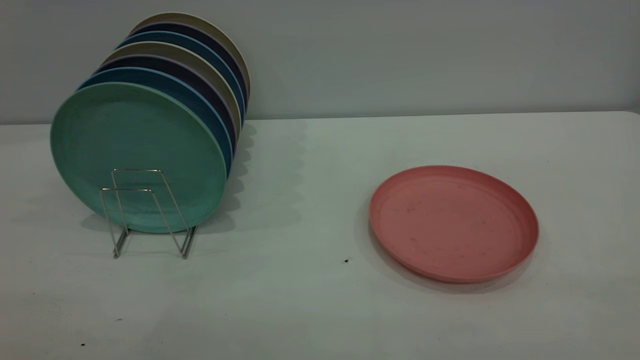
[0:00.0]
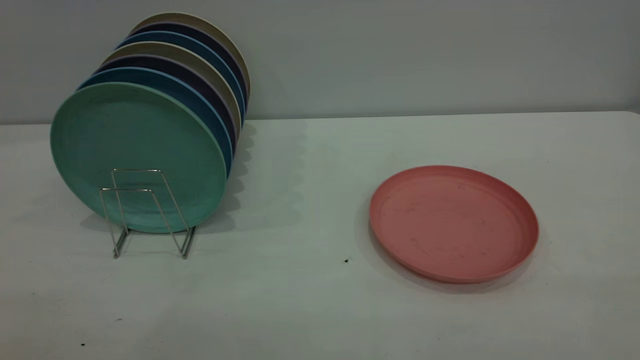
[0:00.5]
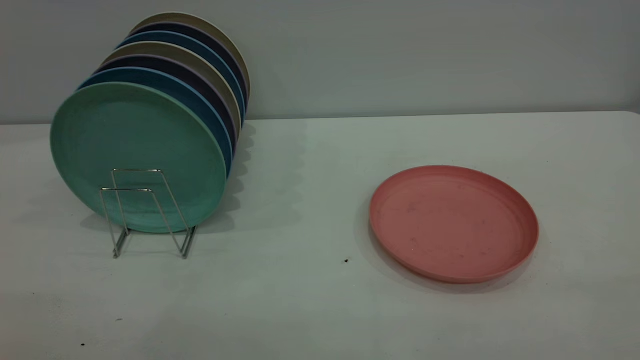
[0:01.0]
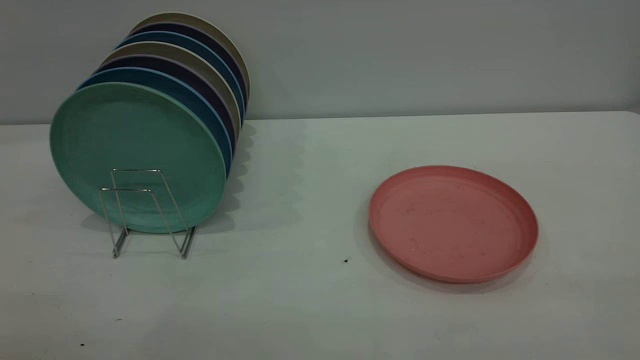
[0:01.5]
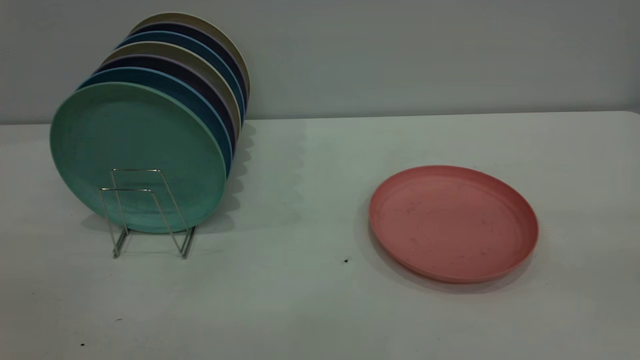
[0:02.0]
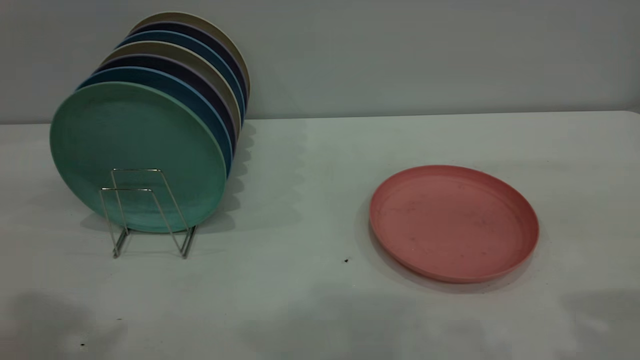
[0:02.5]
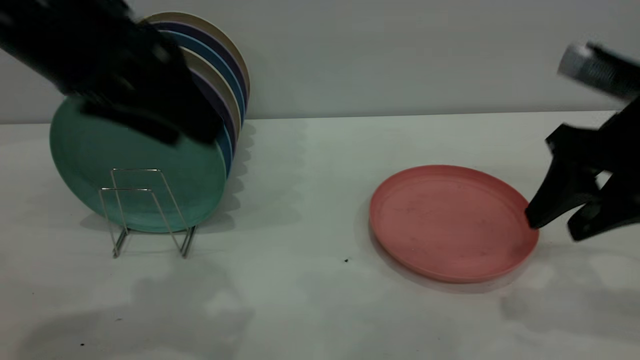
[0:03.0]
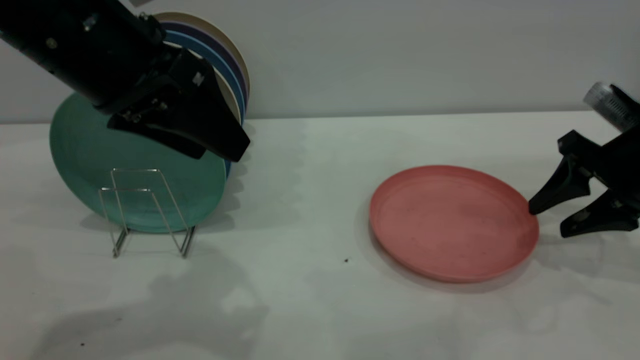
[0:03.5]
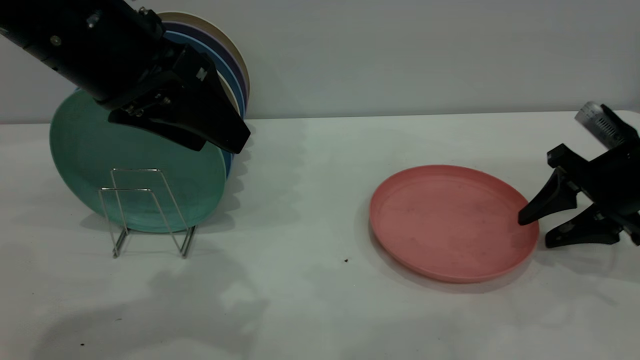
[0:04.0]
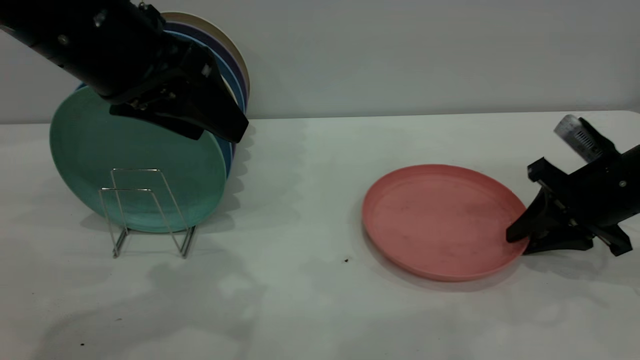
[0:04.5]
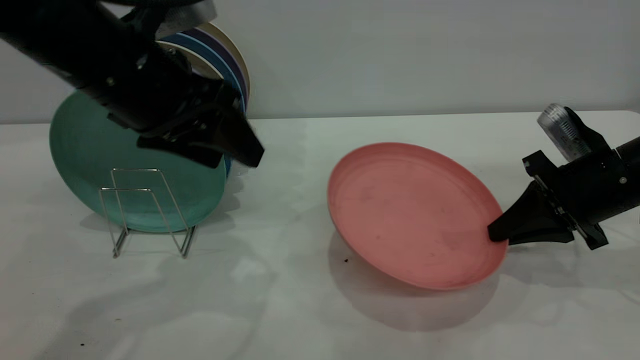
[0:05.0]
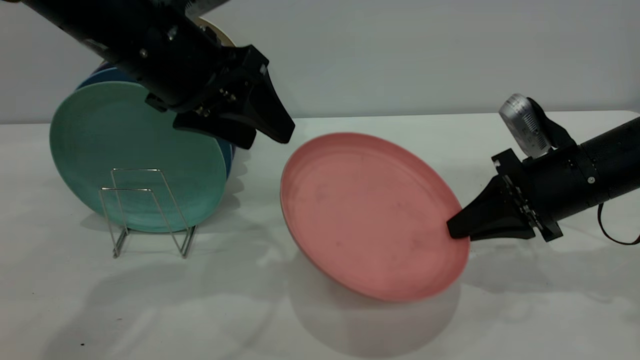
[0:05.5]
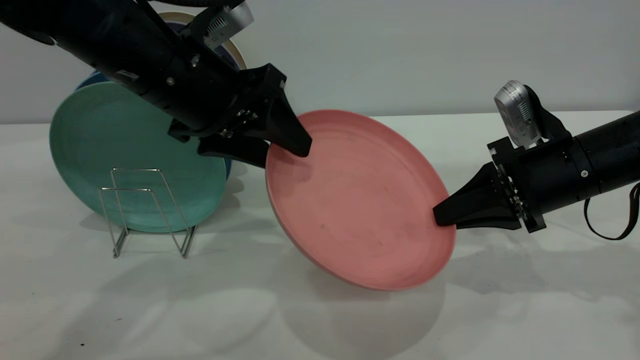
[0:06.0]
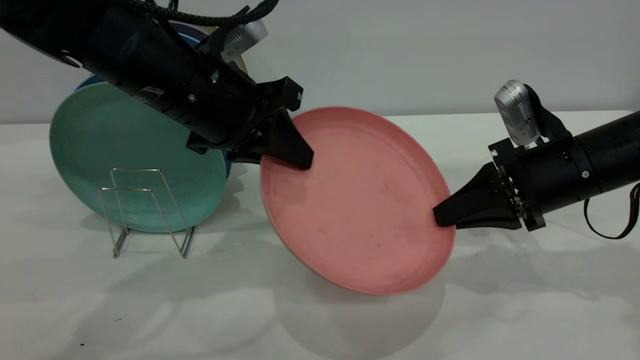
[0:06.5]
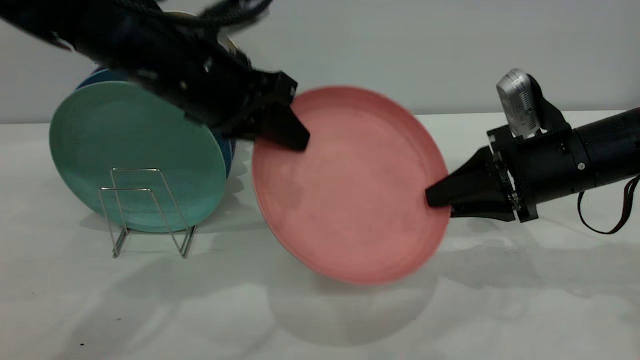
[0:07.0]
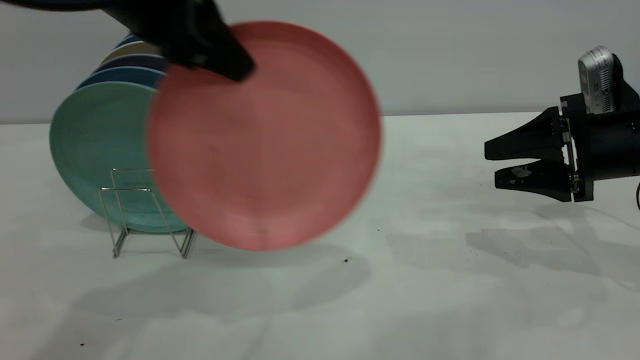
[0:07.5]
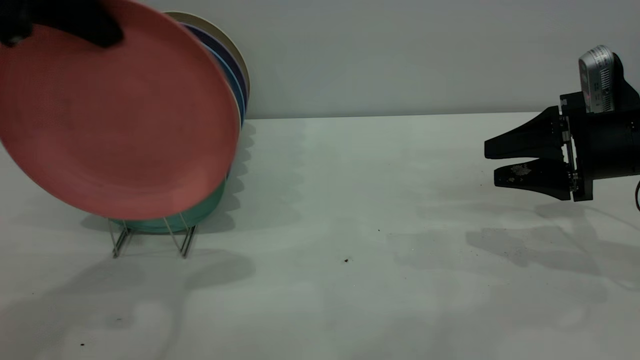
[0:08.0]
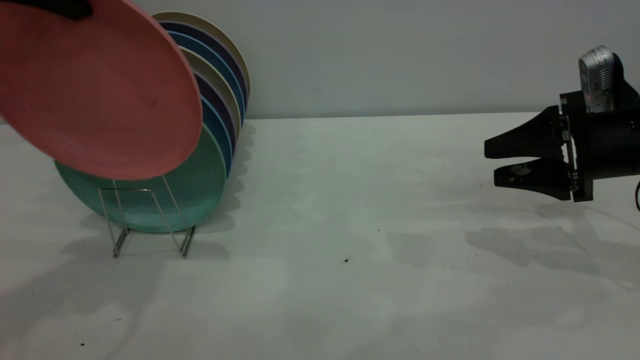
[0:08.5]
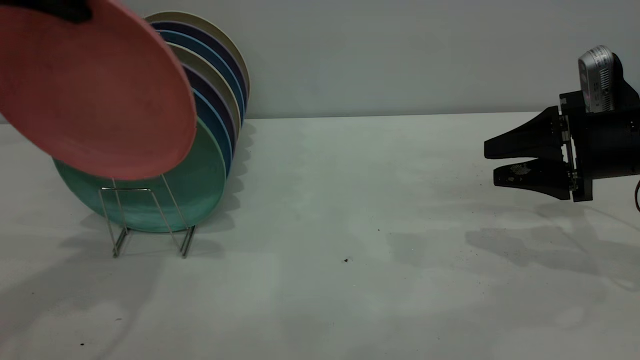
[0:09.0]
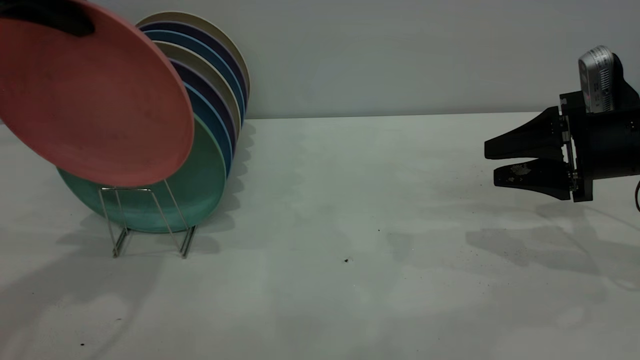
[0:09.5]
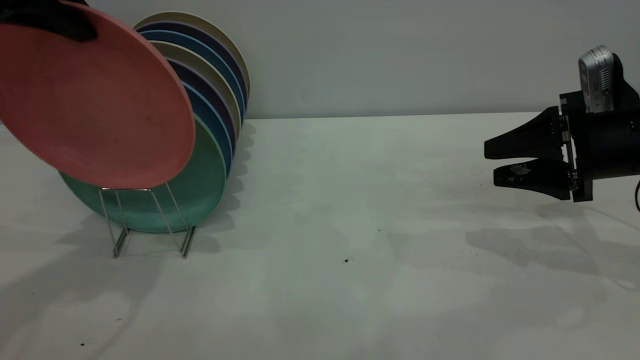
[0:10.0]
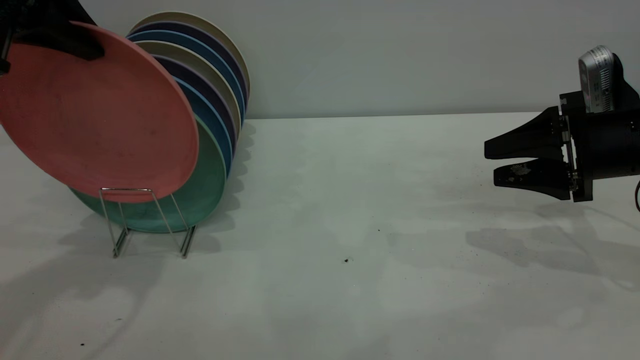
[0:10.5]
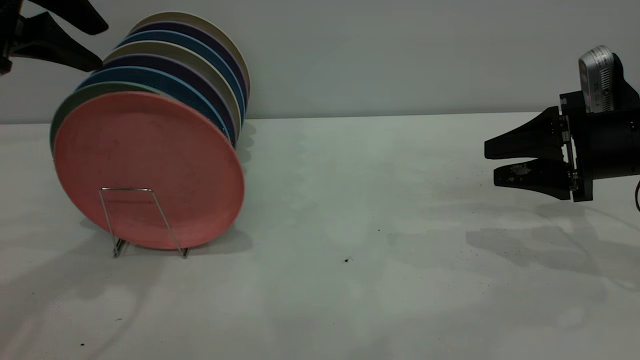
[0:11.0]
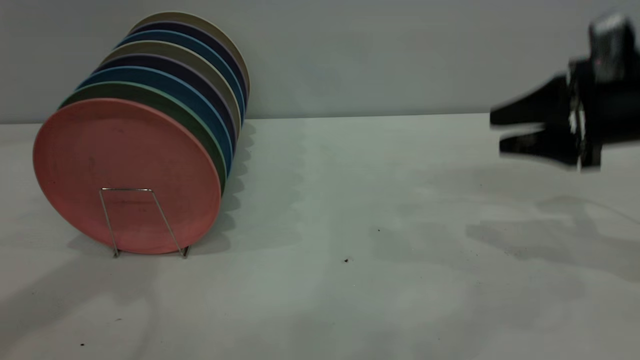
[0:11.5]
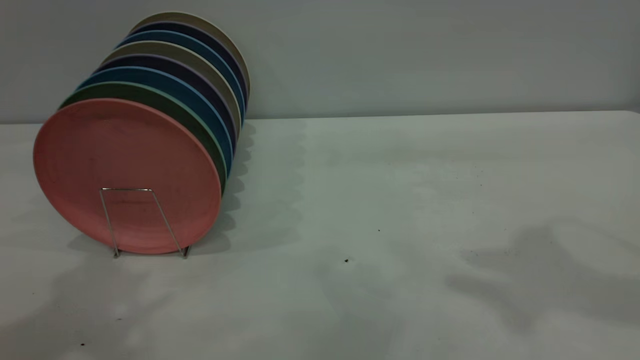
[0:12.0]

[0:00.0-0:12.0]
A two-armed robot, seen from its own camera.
Task of the whole recording: the right gripper grasp the pink plate, the right gripper pass the pink plate to the left gripper, and the left gripper place the pink plate on the plate rack.
Step, 0:00.0 to 0:04.5: Pick up the plate with the right gripper.
Step, 0:05.0 to 0:07.0: Pass the plate from the right gripper to the left gripper.
Step, 0:07.5 to 0:11.0: Place the plate on the shelf.
0:02.0 to 0:04.0: The right gripper moves forward and downward, some 40 cm. Meanwhile the left gripper goes about 30 cm forward, to the right and downward.
0:04.0 to 0:06.0: The right gripper moves to the left, about 10 cm, and closes. The left gripper goes roughly 10 cm downward and forward.
0:06.0 to 0:08.0: The right gripper moves to the right, about 5 cm, and opens up; the left gripper moves upward and to the left, roughly 15 cm, and closes.
0:08.0 to 0:10.0: There are only small adjustments of the grippers.
0:10.0 to 0:12.0: The right gripper is displaced upward by approximately 25 cm, while the left gripper heads backward and upward, covering approximately 10 cm, and opens.

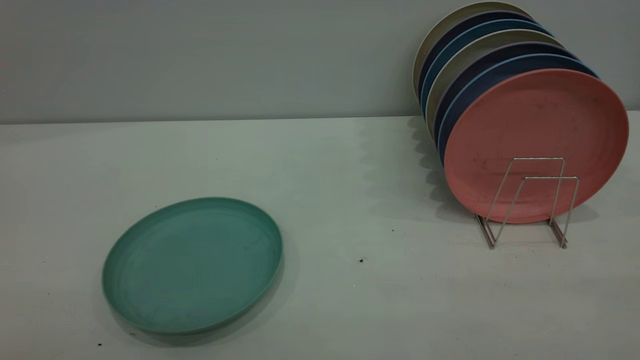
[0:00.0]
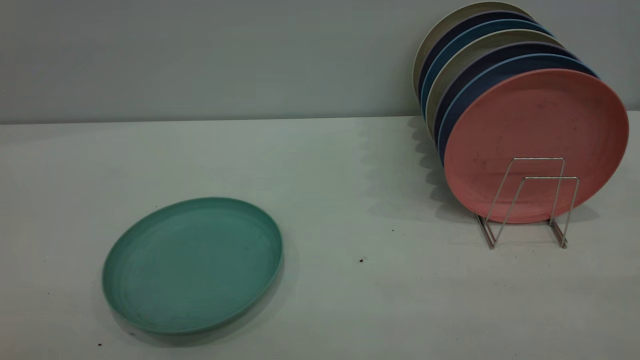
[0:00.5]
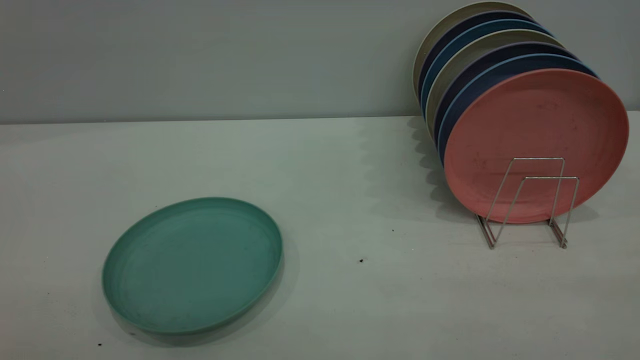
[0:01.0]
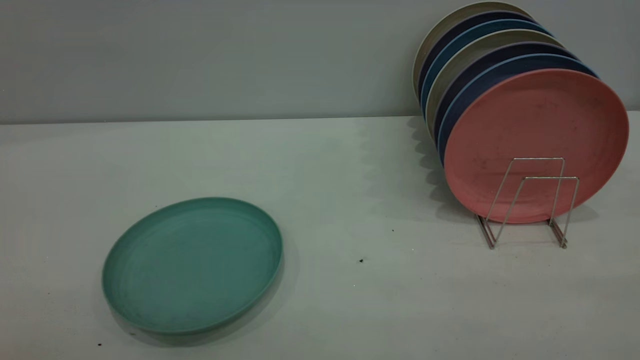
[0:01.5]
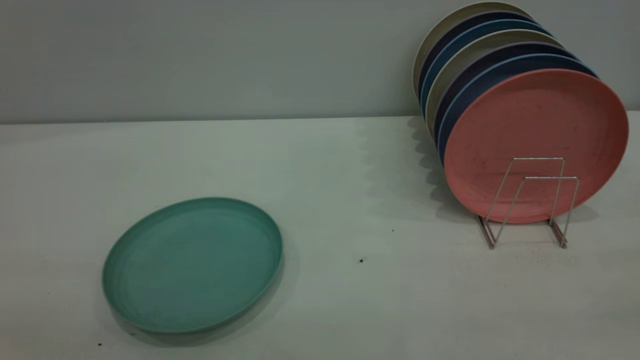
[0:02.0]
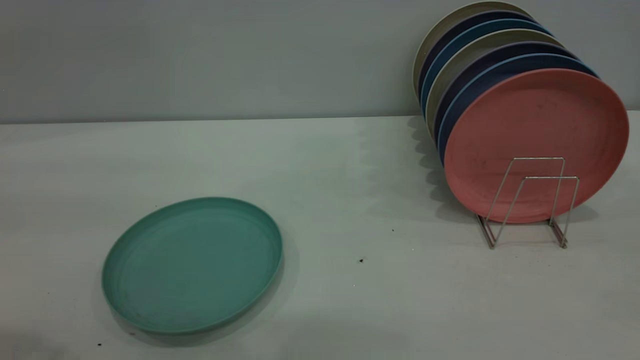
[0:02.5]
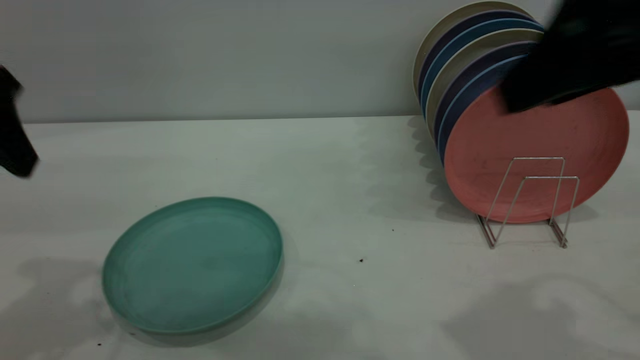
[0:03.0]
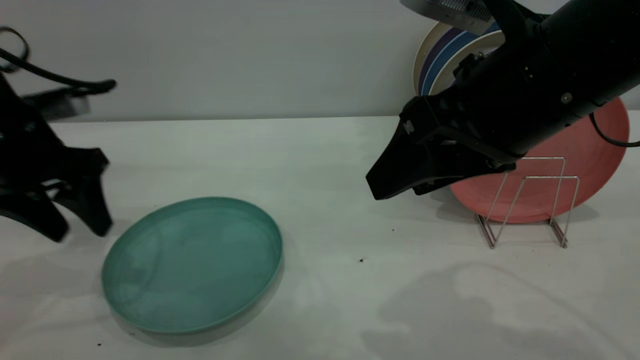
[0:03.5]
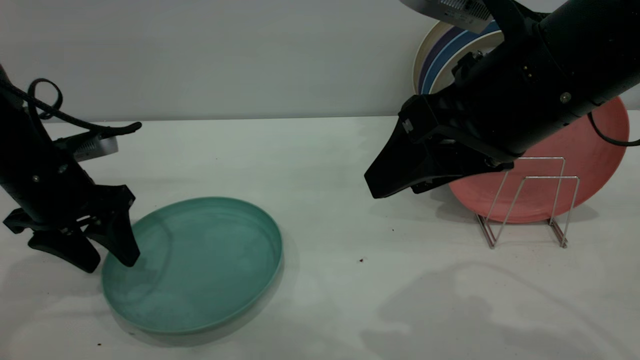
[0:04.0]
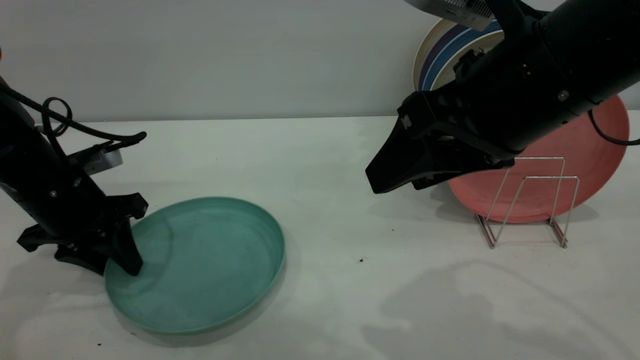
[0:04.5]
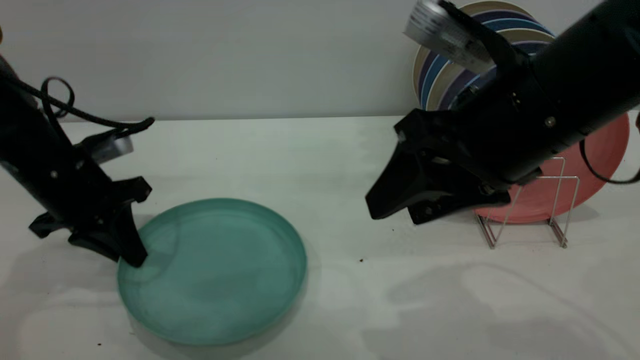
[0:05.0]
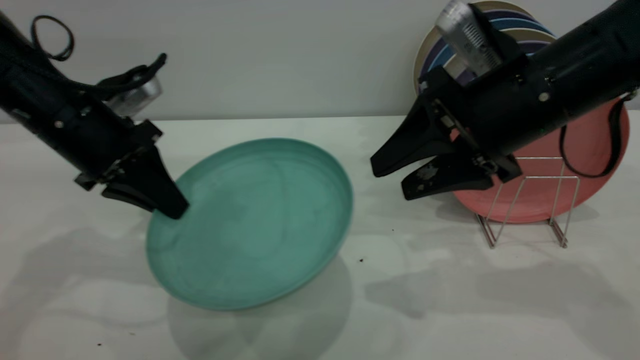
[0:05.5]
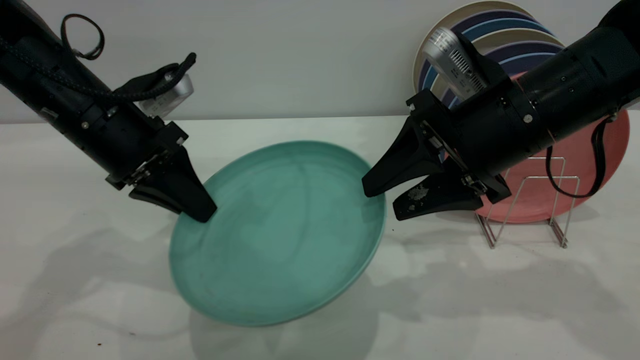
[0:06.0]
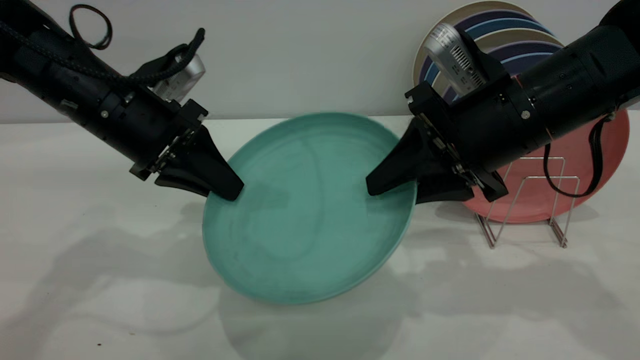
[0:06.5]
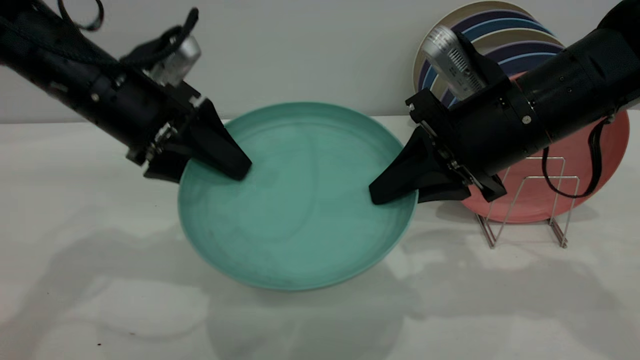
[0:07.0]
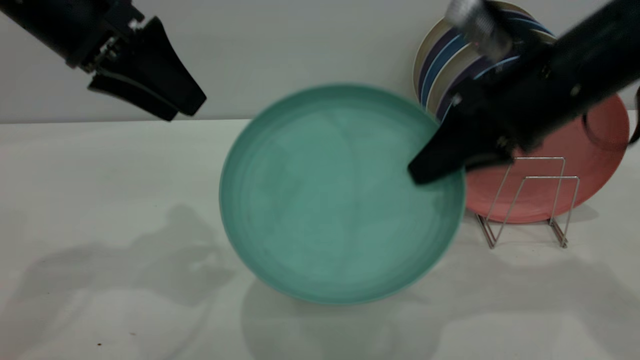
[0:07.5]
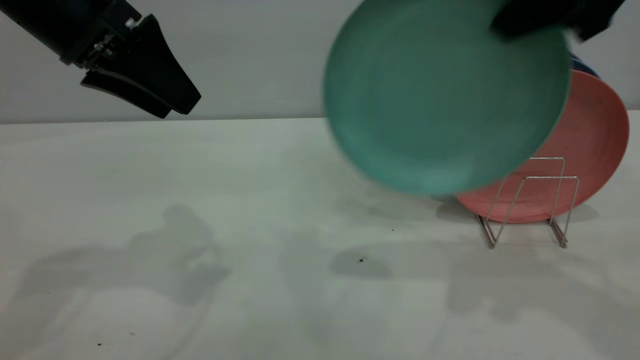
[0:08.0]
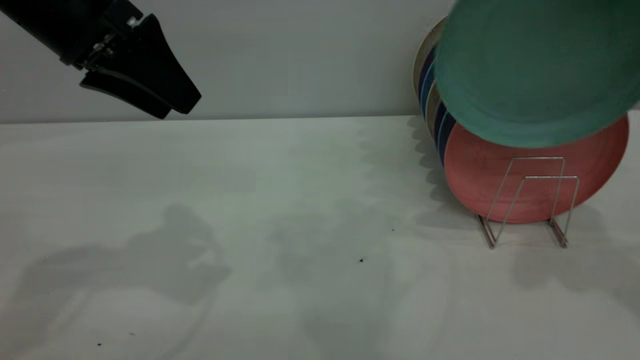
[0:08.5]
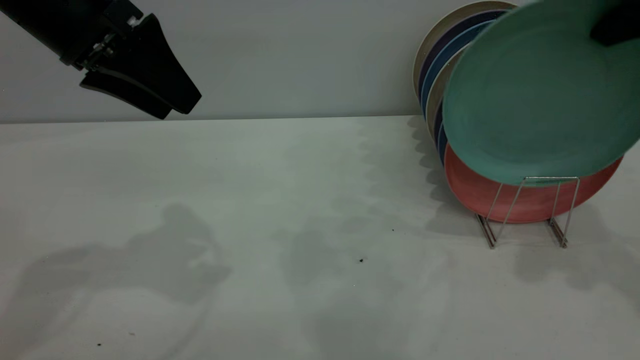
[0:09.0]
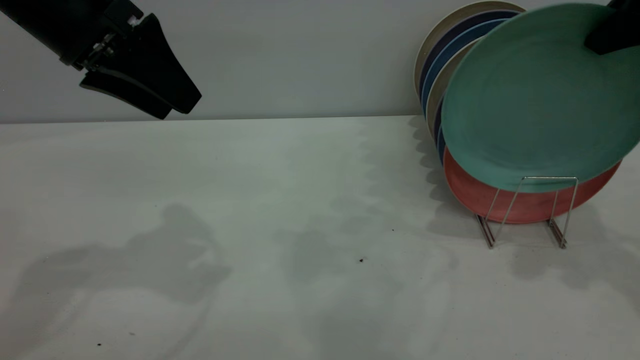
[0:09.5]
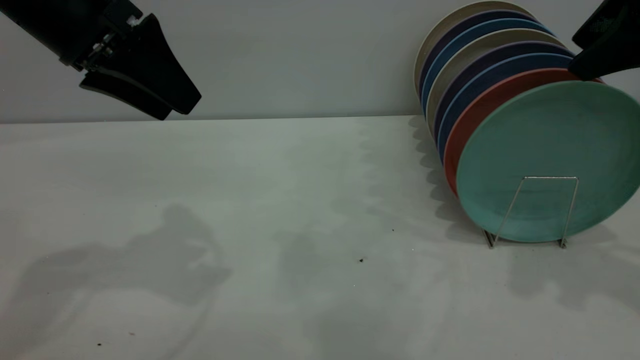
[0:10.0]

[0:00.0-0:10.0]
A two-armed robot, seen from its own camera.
Task of the whole recording: the left gripper grasp the green plate, the left gripper pass the green plate to the right gripper, and the right gripper place the green plate on the plate rack.
Step, 0:00.0 to 0:05.0: Pick up the plate with the left gripper.
Step, 0:05.5 to 0:07.5: Pass the plate from the left gripper to the right gripper.
0:02.0 to 0:04.0: The left gripper shifts roughly 40 cm forward and downward; the right gripper is displaced forward, to the left and downward by approximately 35 cm.
0:04.0 to 0:06.0: The left gripper moves to the right, approximately 5 cm, and closes; the right gripper travels forward and downward by about 10 cm.
0:06.0 to 0:08.0: Both grippers travel together upward, about 15 cm. The left gripper opens, while the right gripper closes its fingers.
0:08.0 to 0:10.0: The right gripper moves to the right, some 5 cm, and opens.
